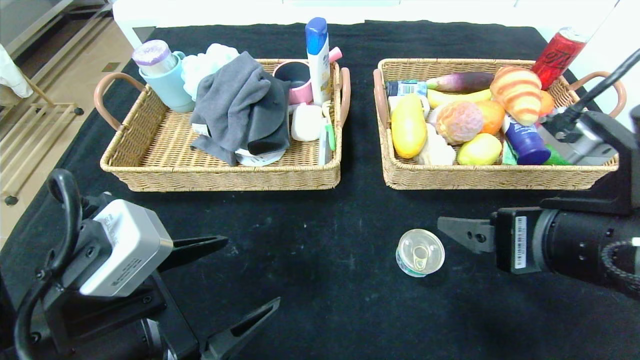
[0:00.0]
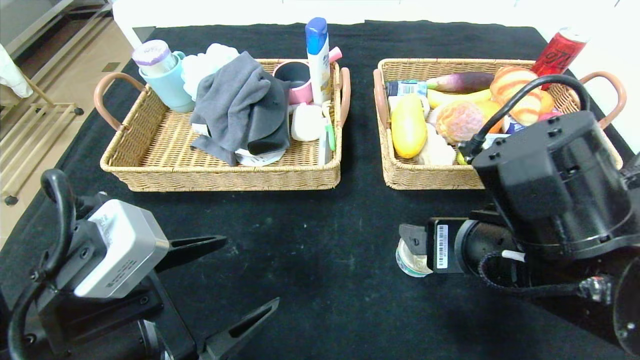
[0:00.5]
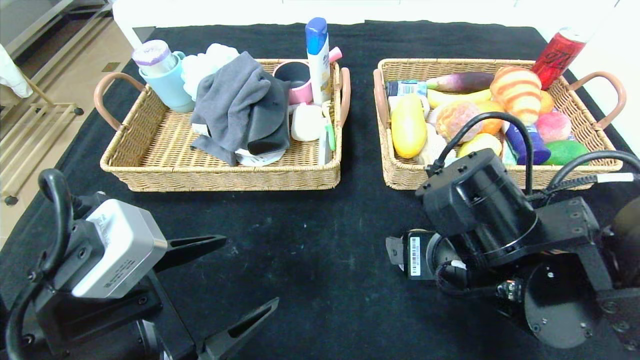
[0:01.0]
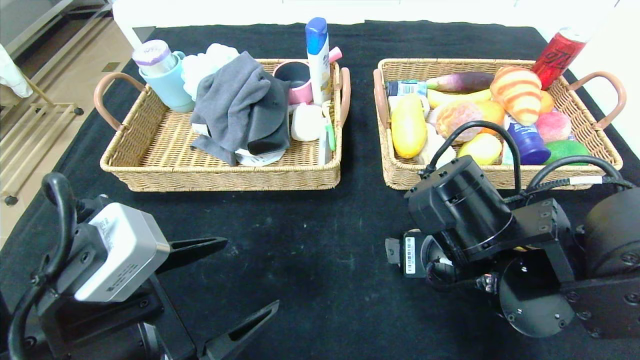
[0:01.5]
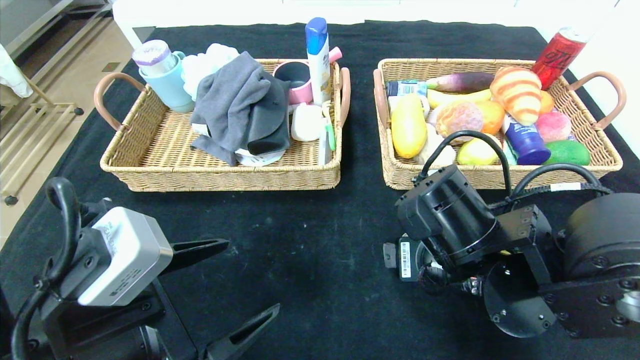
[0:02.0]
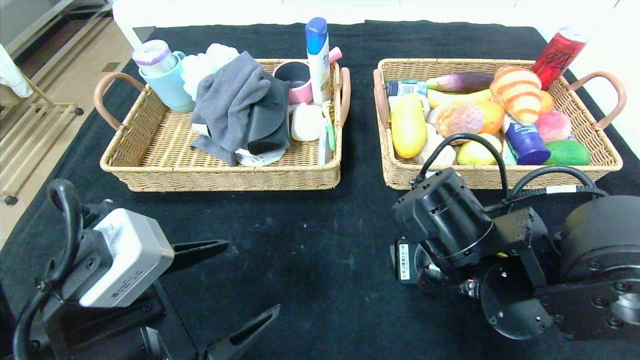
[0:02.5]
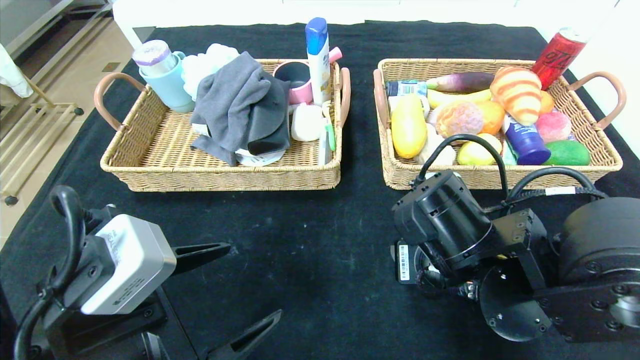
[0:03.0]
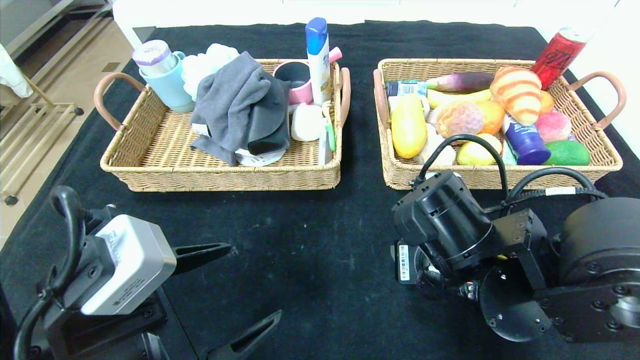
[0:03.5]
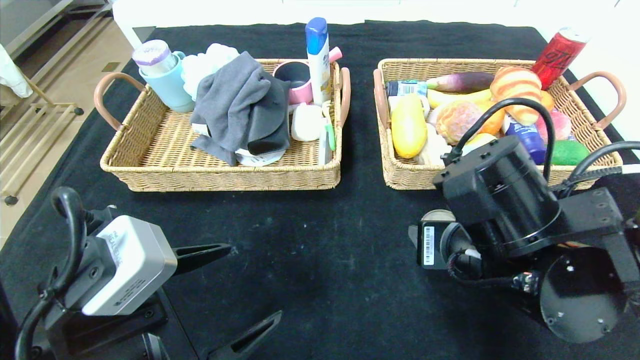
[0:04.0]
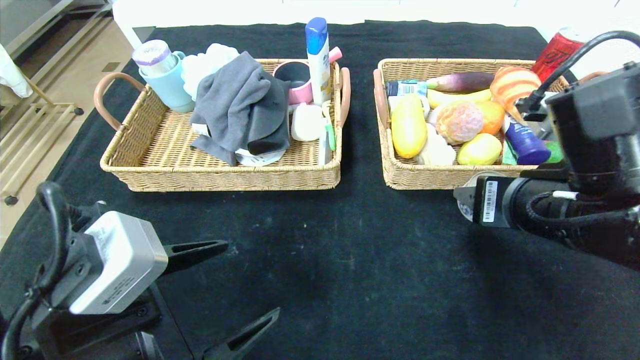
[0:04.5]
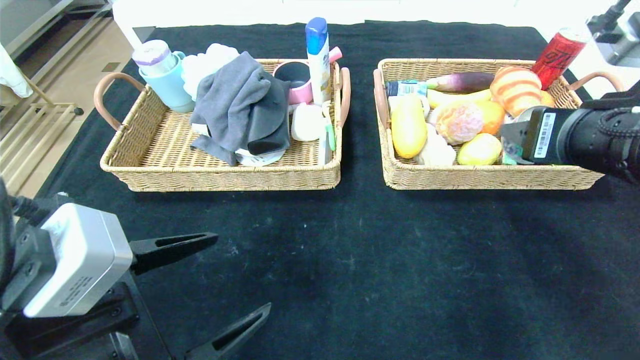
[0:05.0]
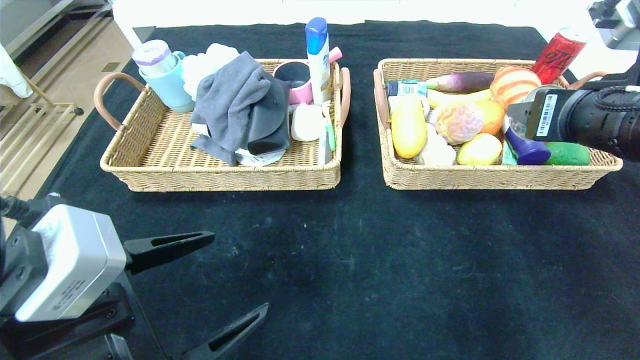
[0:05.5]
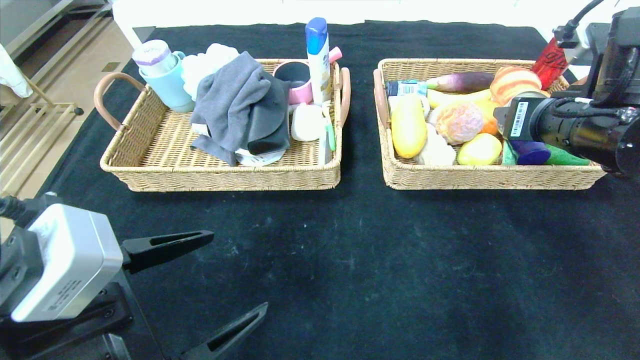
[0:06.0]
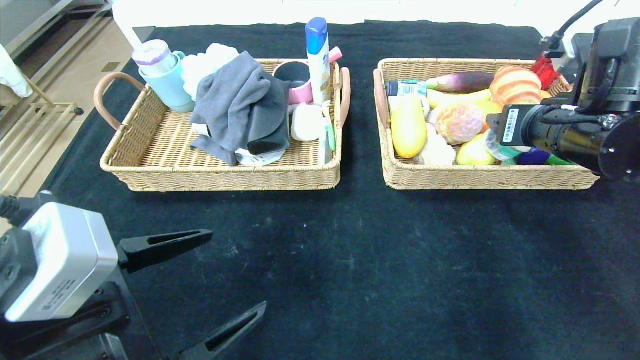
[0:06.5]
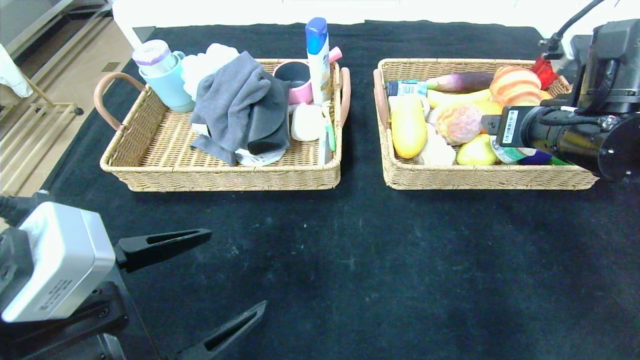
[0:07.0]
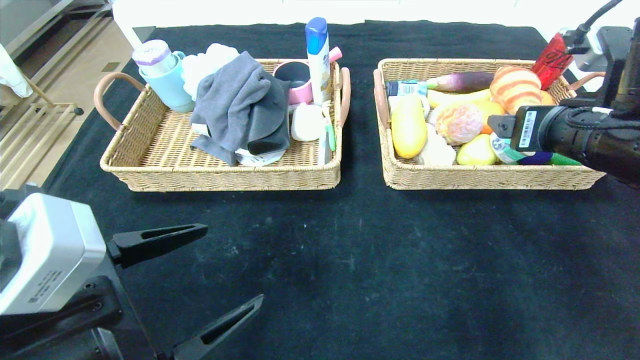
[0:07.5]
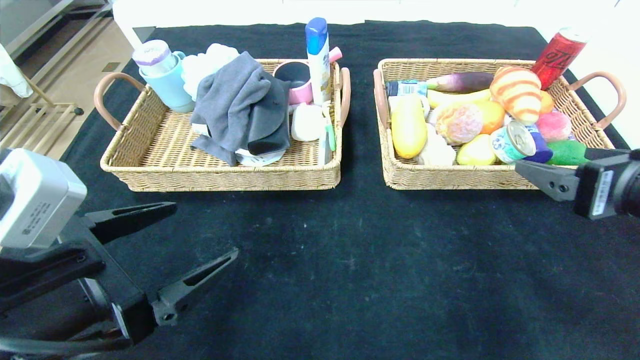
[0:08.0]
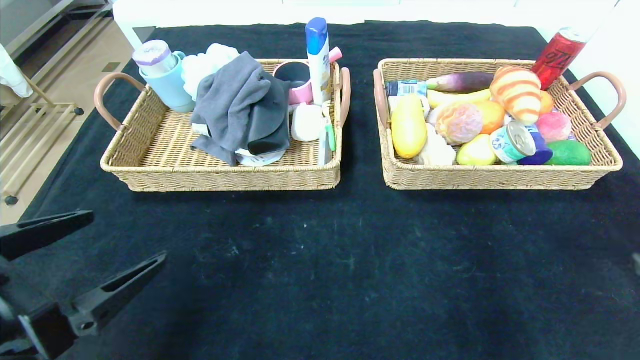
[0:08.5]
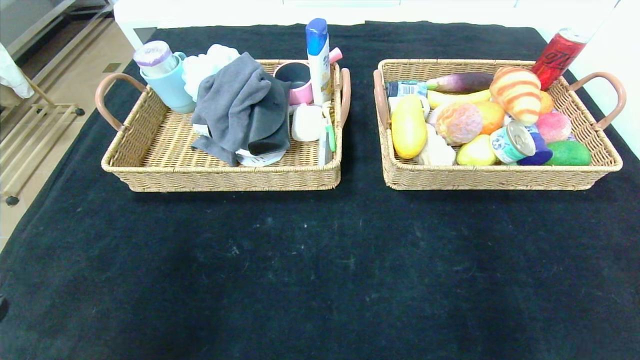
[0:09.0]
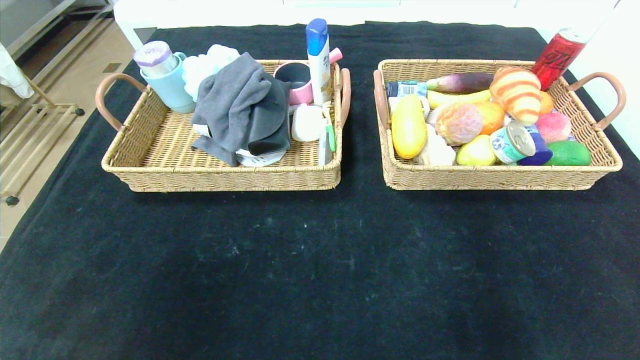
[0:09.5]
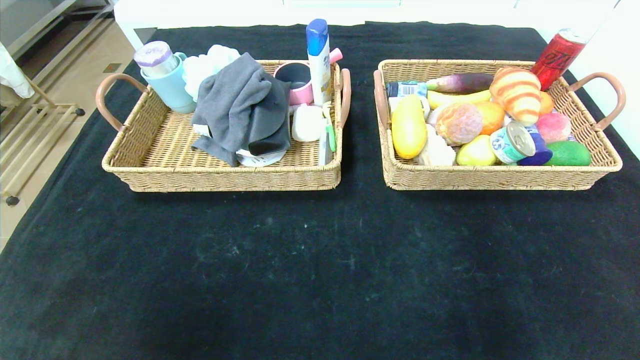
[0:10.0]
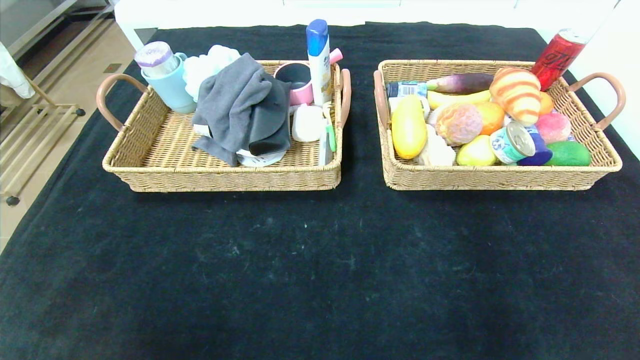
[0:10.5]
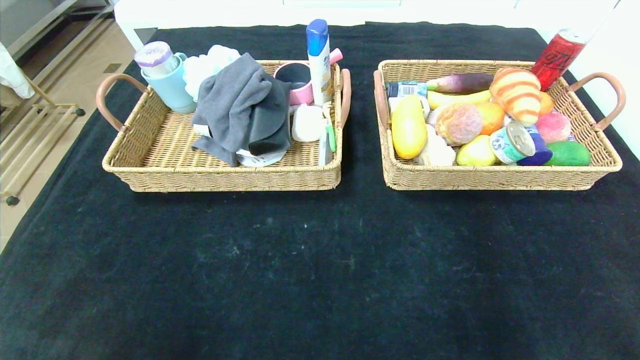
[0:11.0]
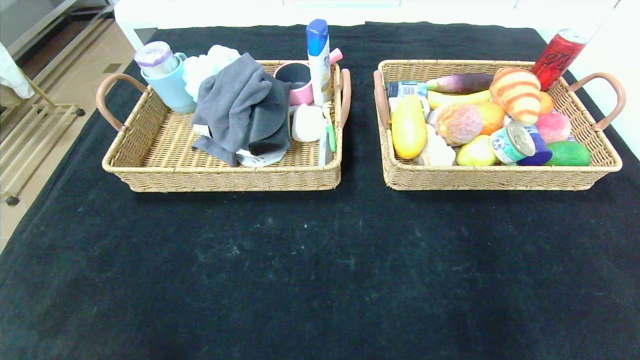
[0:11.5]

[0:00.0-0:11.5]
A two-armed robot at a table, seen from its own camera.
Step, 0:00.0 to 0:07.0: Grasp the can and put it in the right basket.
0:00.0 to 0:02.0: The right gripper moves to the left, downward and forward, about 10 cm.
0:02.0 to 0:04.0: The right gripper closes.
0:04.0 to 0:06.0: The right gripper moves to the right, forward and upward, roughly 15 cm.
0:06.0 to 0:07.5: There are only small adjustments of the grippers.
0:07.5 to 0:09.5: The left gripper goes approximately 20 cm backward and to the left; the right gripper goes some 35 cm backward.
